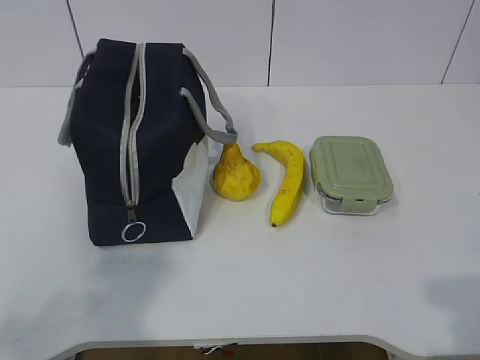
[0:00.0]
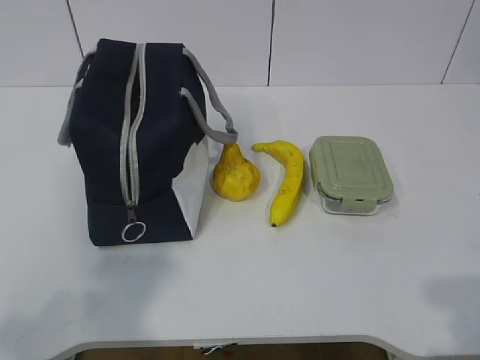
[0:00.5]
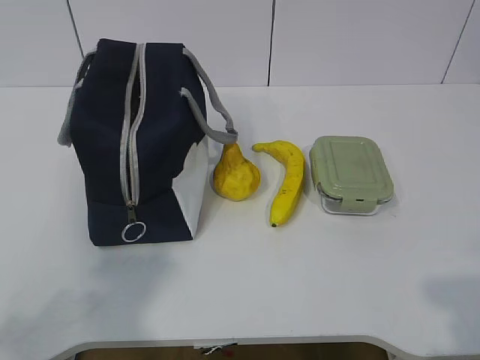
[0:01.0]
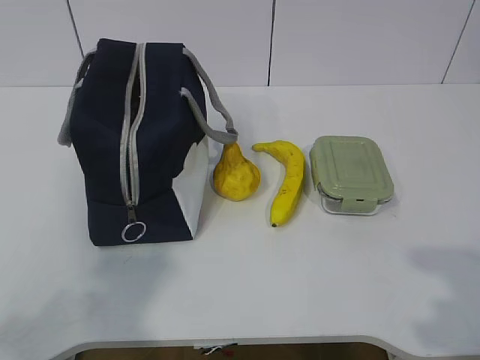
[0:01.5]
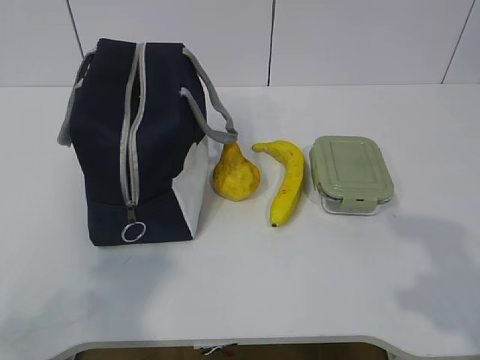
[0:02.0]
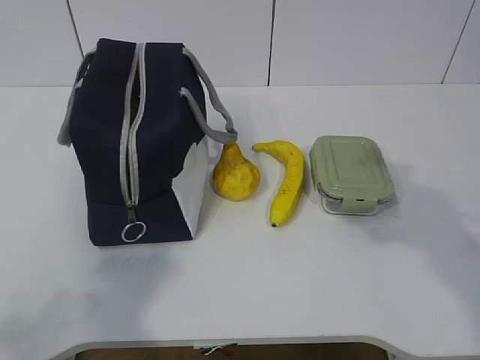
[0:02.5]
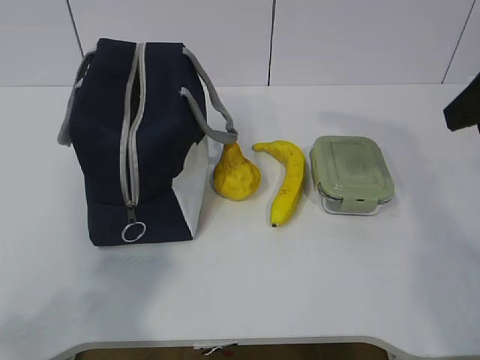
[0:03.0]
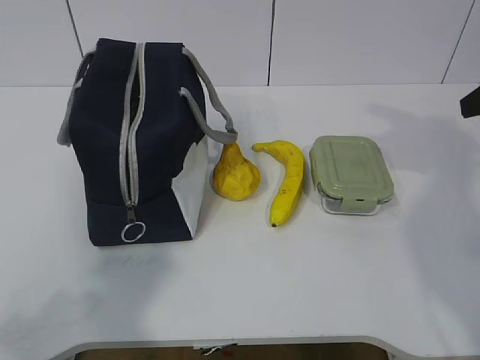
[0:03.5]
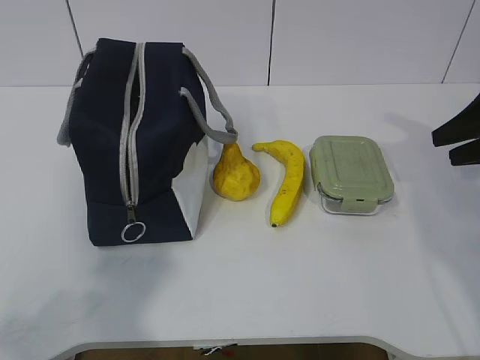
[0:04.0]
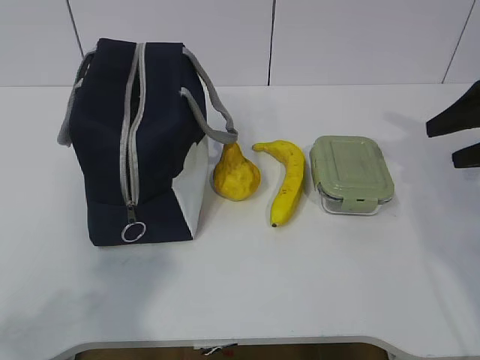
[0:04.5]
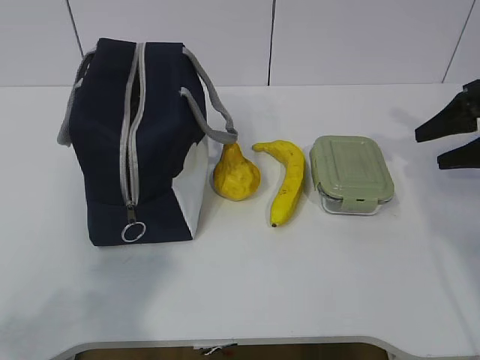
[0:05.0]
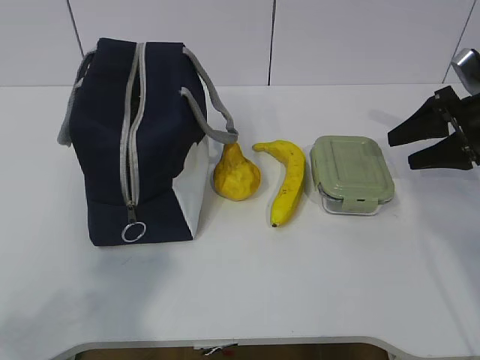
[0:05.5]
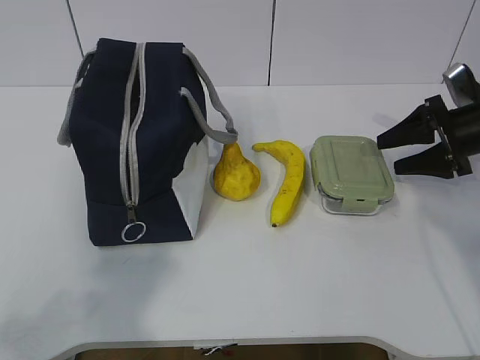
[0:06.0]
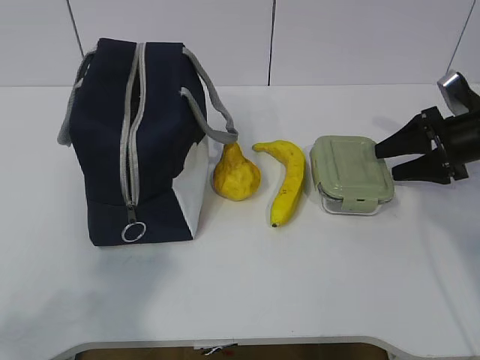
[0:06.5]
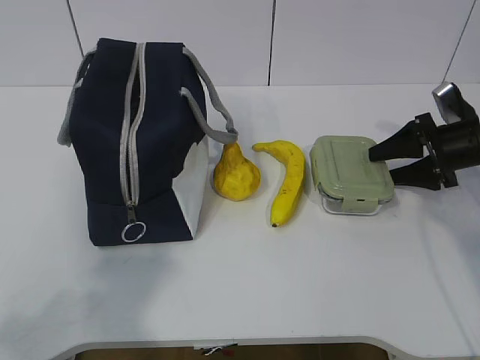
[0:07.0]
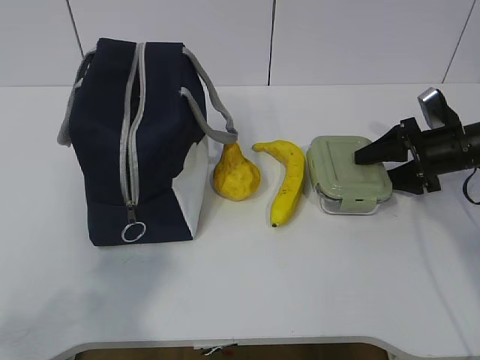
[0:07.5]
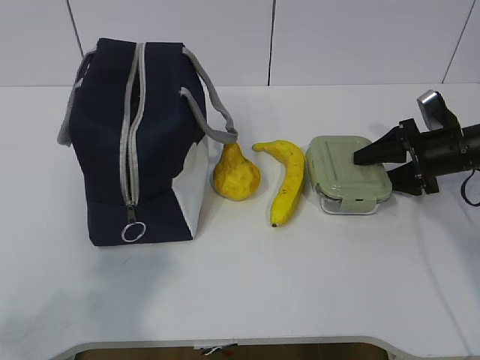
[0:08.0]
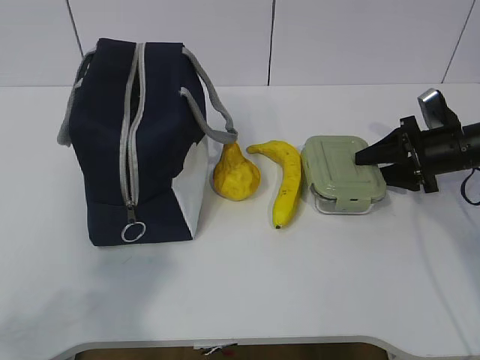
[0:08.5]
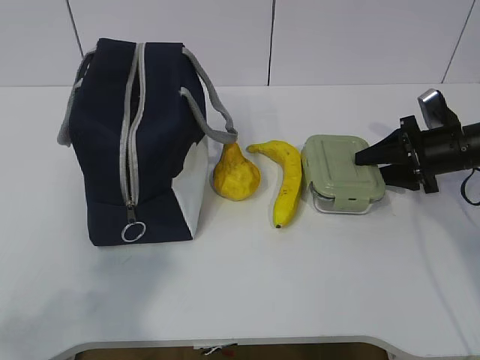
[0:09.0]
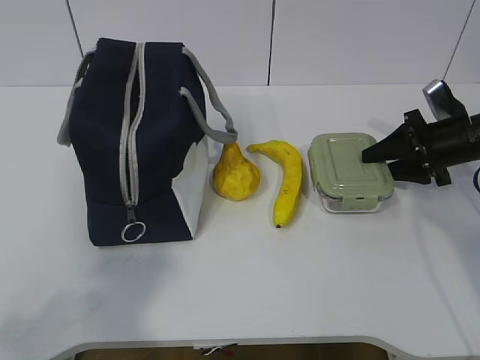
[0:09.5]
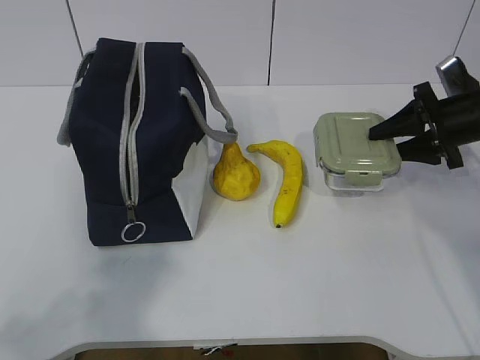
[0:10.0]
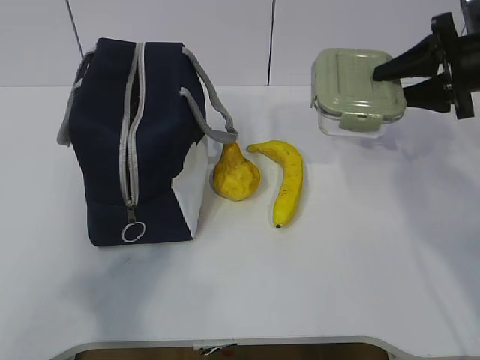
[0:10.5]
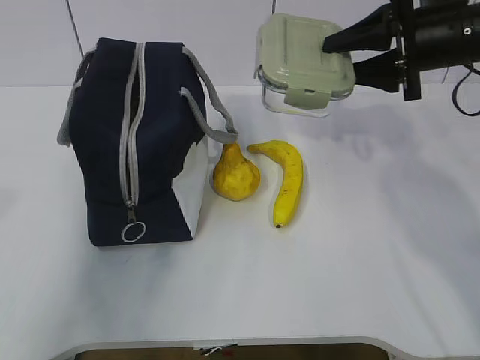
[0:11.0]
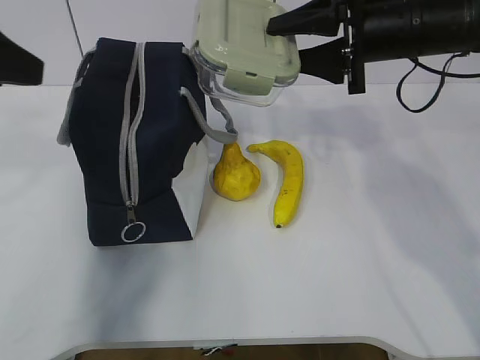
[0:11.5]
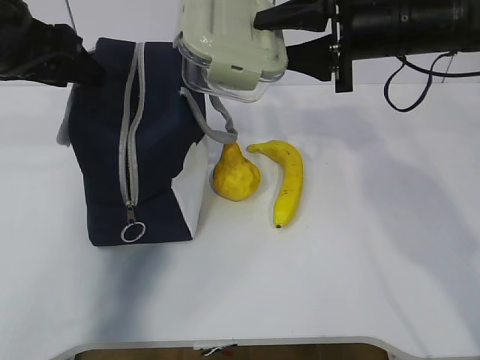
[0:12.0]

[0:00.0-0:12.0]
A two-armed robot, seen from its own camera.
Step, 0:00.0 to 0:07.5: Grab the lunch box with your right hand.
Step, 0:08.0 to 0:11.0: Grab the lunch bag with your left hand.
0:02.0 to 0:04.0: The right gripper is displaced forward by about 30 cm.
0:04.0 to 0:06.0: The right gripper travels downward and forward by approximately 10 cm.
0:06.0 to 0:08.0: The right gripper is displaced downward by about 5 cm.
0:08.0 to 0:10.0: The right gripper goes approximately 5 cm upward.
0:10.0 to 0:12.0: The right gripper travels to the left and upward by roughly 20 cm. Meanwhile the left gripper moves forward, roughly 30 cm, and opens up.

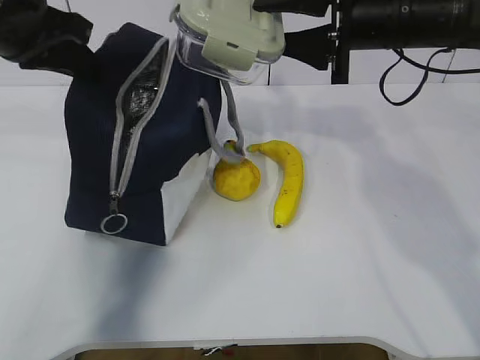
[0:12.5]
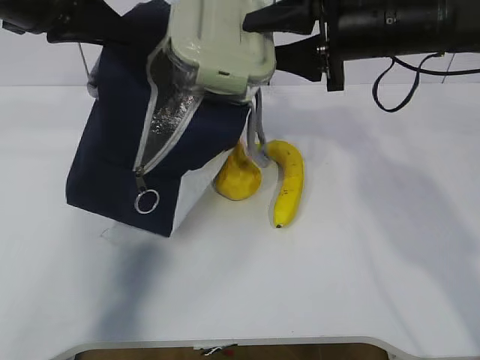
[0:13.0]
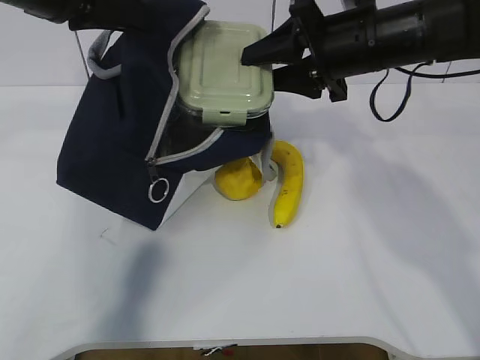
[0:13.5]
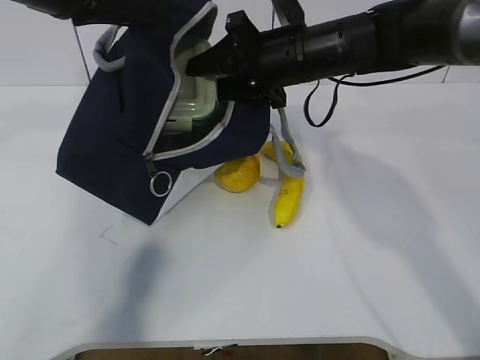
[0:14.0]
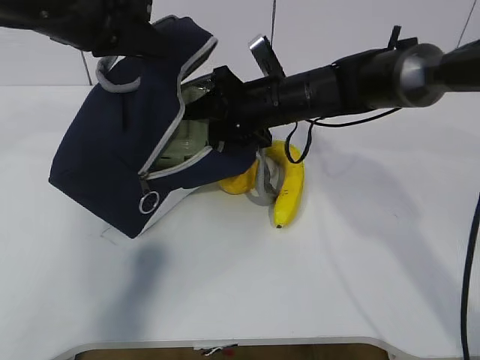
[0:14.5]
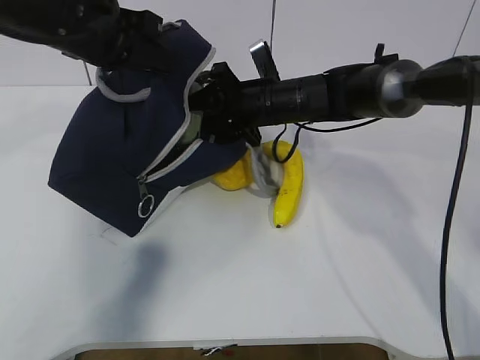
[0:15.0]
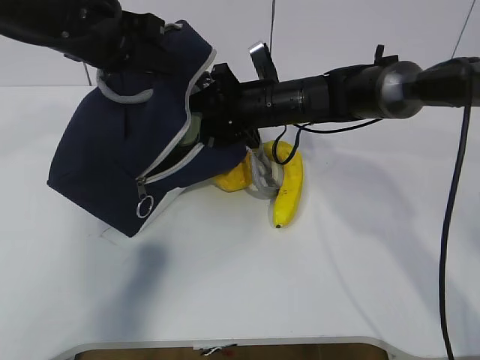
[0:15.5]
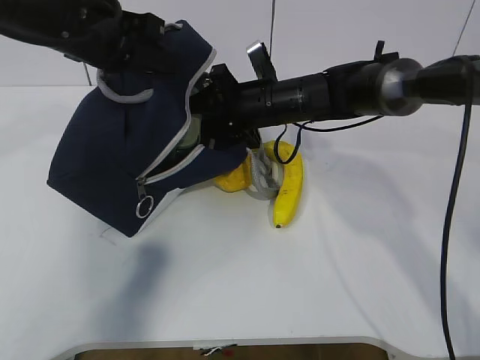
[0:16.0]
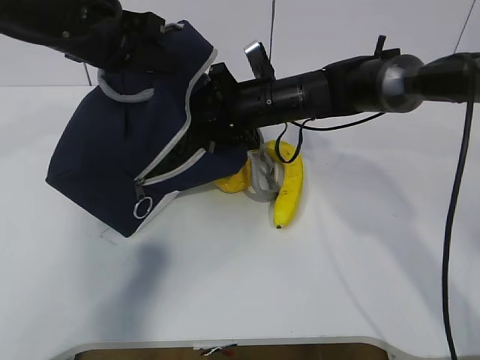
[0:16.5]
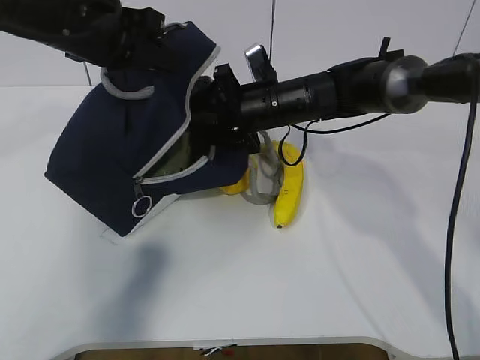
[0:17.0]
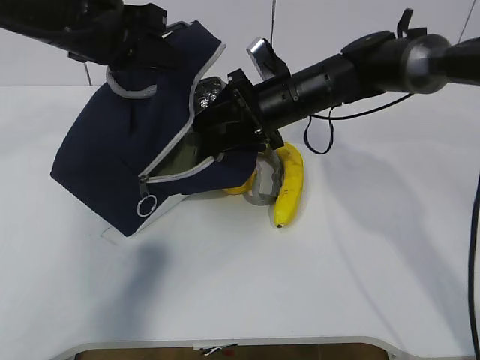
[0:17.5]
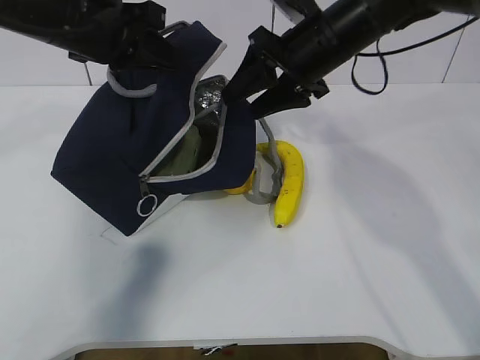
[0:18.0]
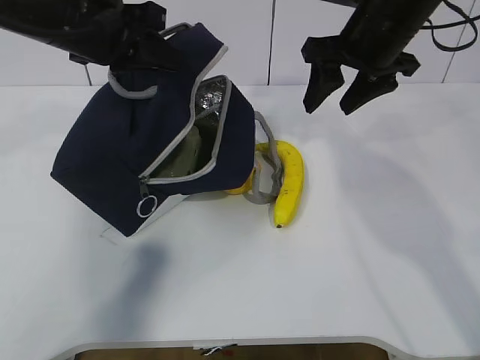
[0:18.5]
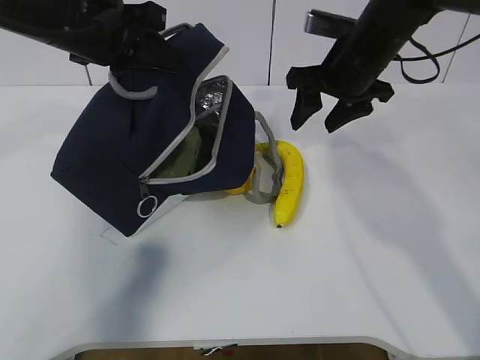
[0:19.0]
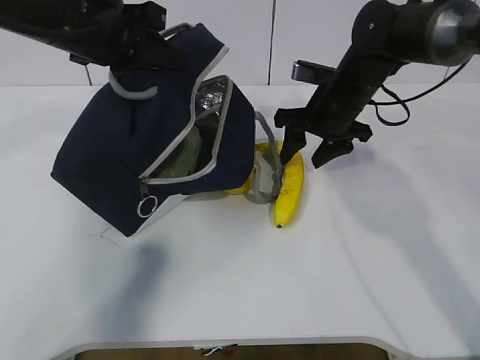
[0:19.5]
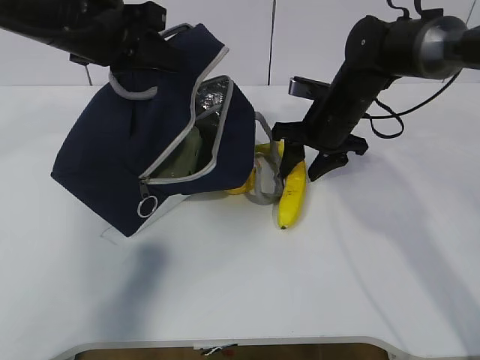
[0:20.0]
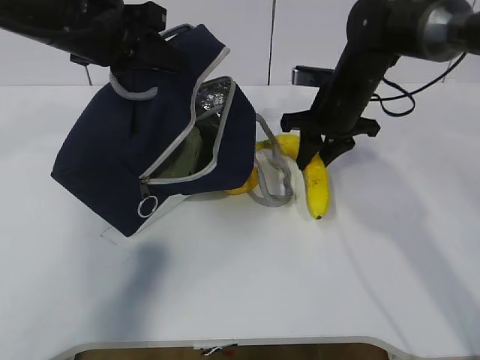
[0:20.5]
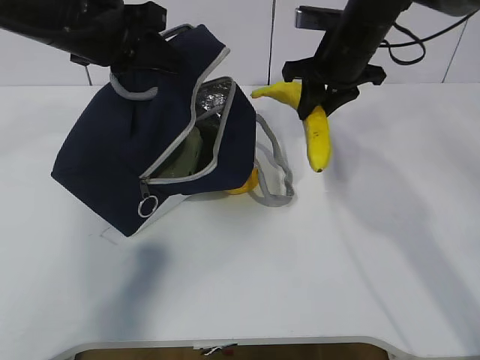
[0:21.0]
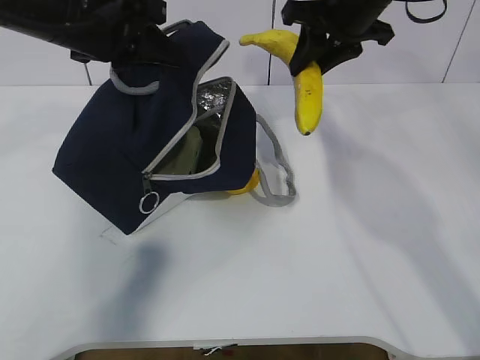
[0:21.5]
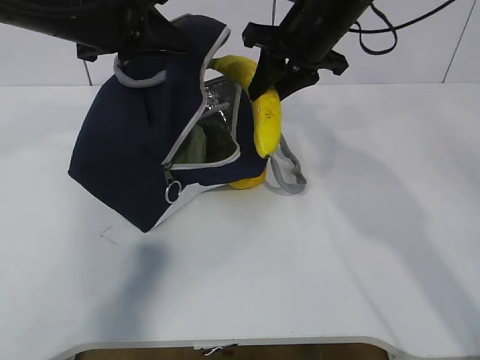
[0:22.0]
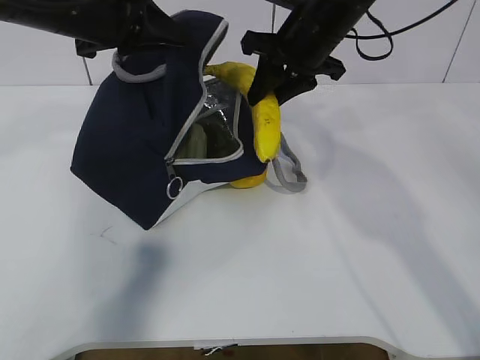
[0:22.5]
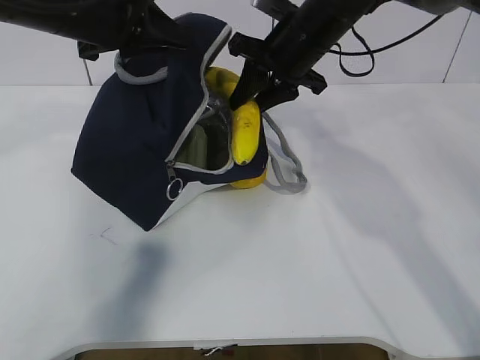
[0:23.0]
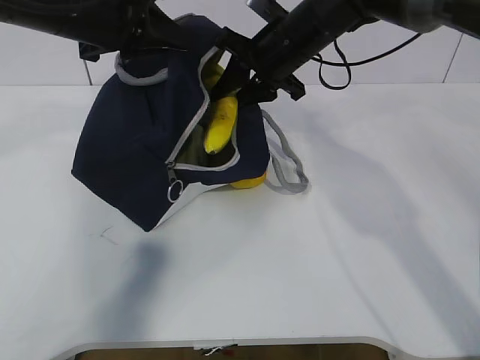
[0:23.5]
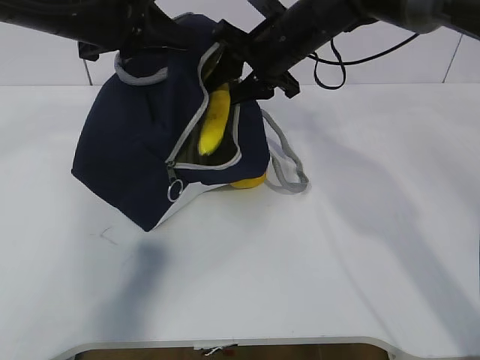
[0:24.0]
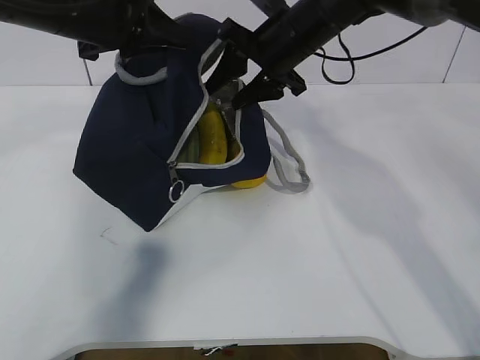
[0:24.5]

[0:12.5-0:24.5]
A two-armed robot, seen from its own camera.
Step, 0:12.5 to 0:14.0: Place it into the bag with your right hand.
Step, 0:14.5 to 0:16.5: Grab the banana with your right hand.
Step, 0:17.0 to 0:20.0: Place it into the bag with your right hand.
Step, 0:20.5 to 0:23.5: Grab the pear with your right hand.
0:12.5 to 0:14.5: The left gripper ends up some 5 cm from where it was. Meanwhile the right gripper travels downward, to the left and forward by some 15 cm.
0:14.5 to 0:16.5: The grippers move only a little.
0:16.5 to 0:18.5: The right gripper shifts some 20 cm upward, to the right and backward.
0:18.5 to 0:20.5: The right gripper is displaced downward and forward by some 15 cm, and closes.
0:20.5 to 0:22.5: The right gripper is displaced upward by roughly 10 cm.

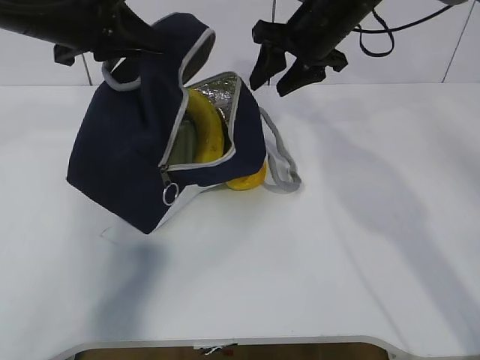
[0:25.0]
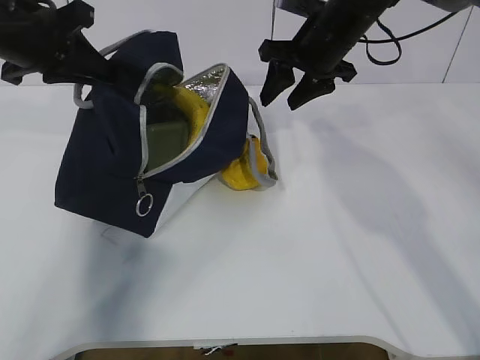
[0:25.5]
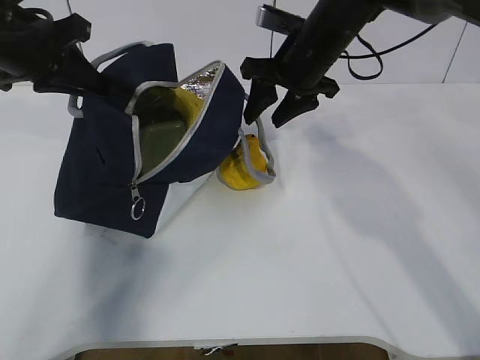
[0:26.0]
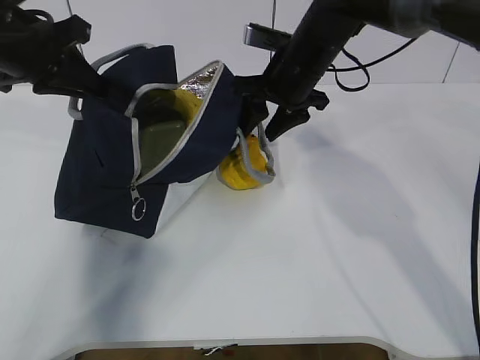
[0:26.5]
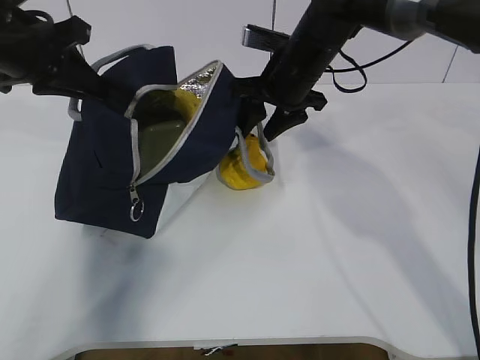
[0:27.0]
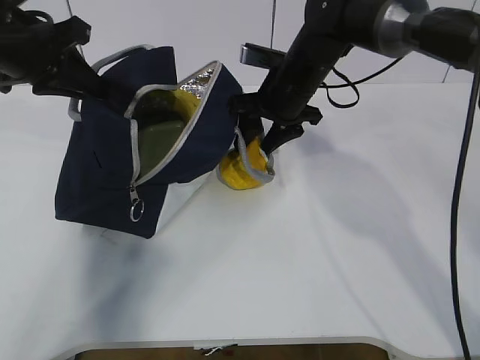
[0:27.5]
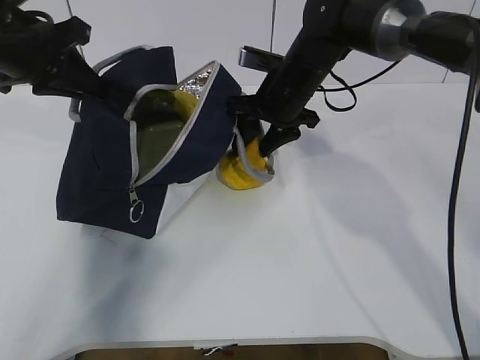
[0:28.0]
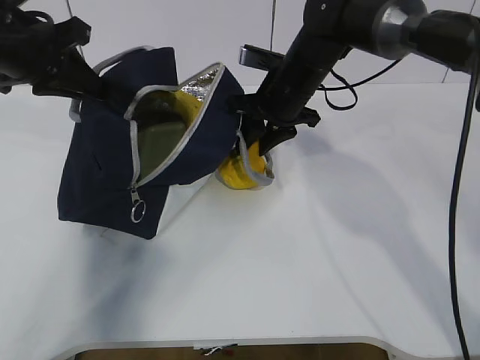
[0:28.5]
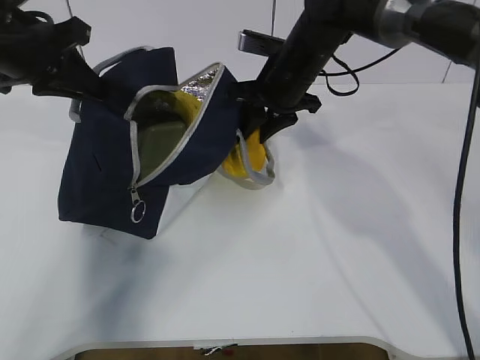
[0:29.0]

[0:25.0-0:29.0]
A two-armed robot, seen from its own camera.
Step, 0:26.5 to 0:27.0: Grab the lunch bag with your right hand.
0:25.0 to 0:27.0: The right gripper changes place by approximately 5 cm, while the left gripper goes about 5 cm to the left.
0:27.0 to 0:29.0: The grippers move only a little.
